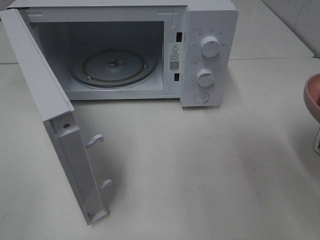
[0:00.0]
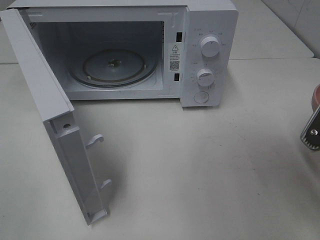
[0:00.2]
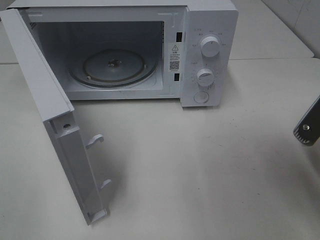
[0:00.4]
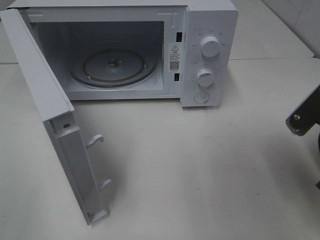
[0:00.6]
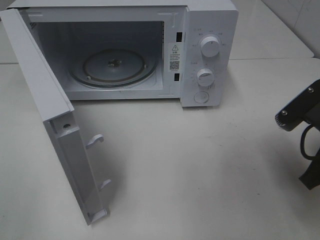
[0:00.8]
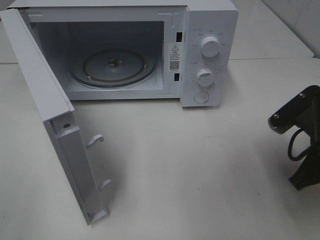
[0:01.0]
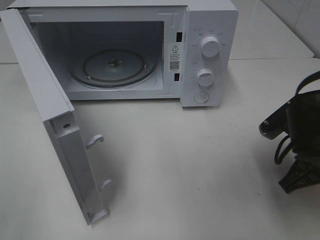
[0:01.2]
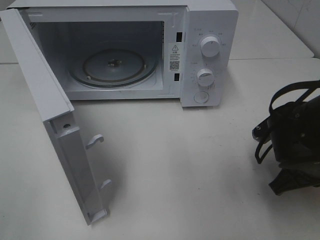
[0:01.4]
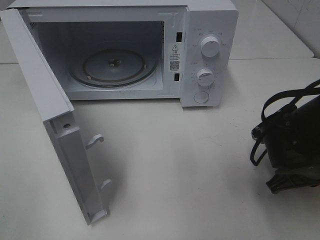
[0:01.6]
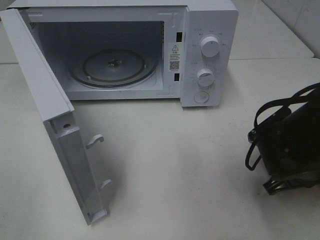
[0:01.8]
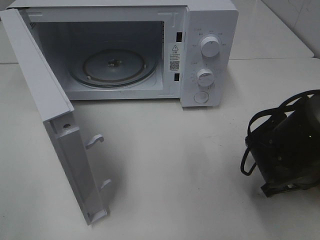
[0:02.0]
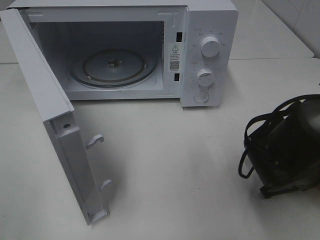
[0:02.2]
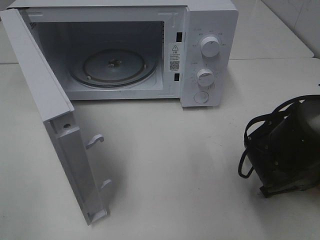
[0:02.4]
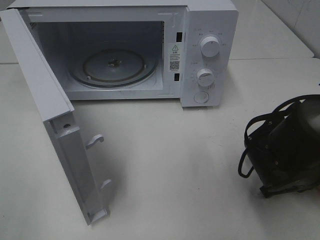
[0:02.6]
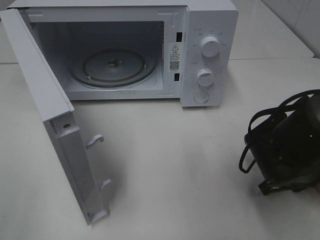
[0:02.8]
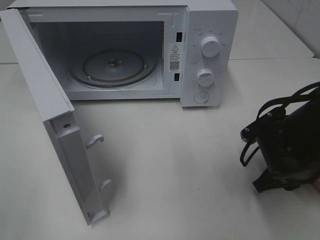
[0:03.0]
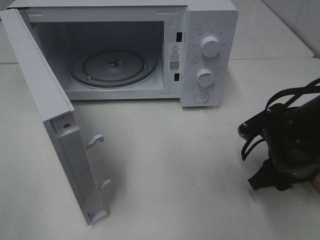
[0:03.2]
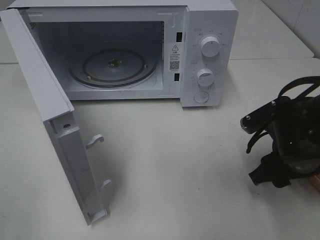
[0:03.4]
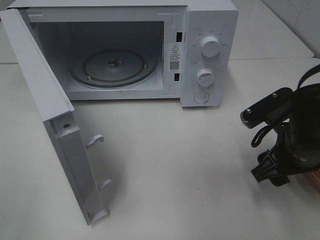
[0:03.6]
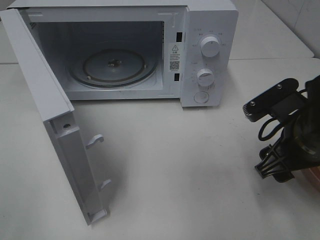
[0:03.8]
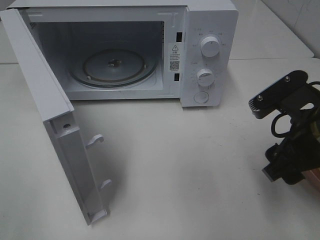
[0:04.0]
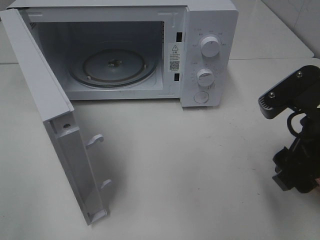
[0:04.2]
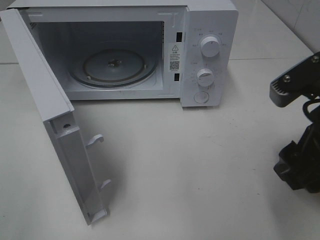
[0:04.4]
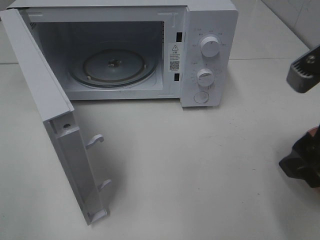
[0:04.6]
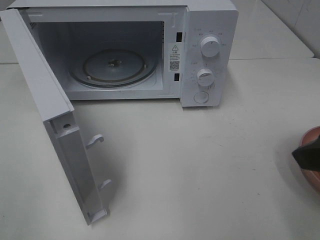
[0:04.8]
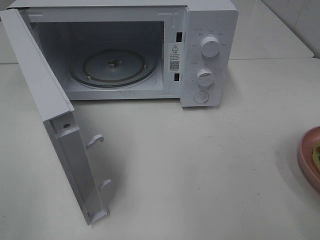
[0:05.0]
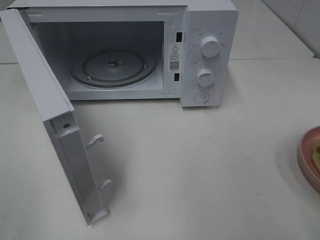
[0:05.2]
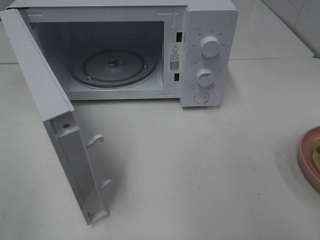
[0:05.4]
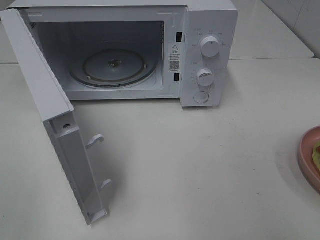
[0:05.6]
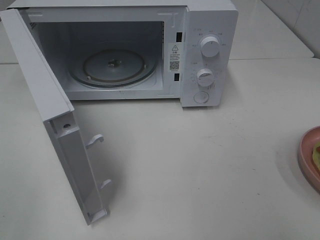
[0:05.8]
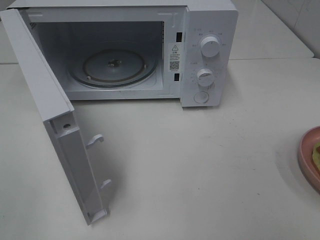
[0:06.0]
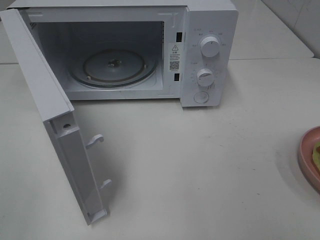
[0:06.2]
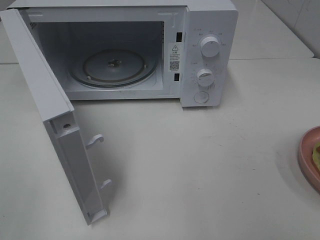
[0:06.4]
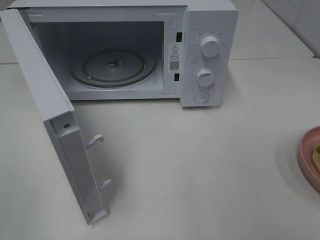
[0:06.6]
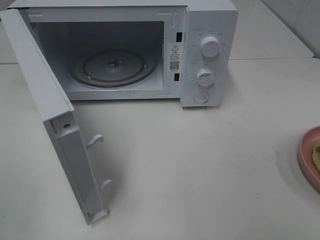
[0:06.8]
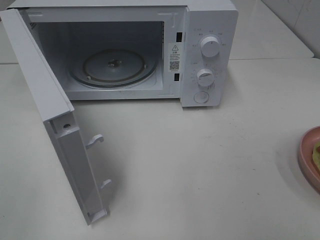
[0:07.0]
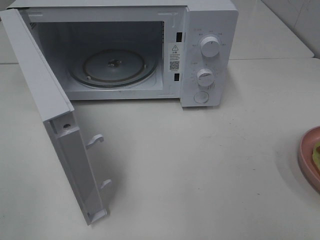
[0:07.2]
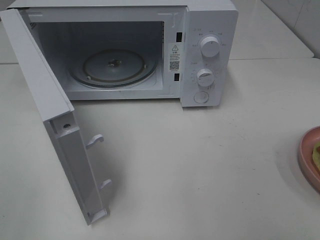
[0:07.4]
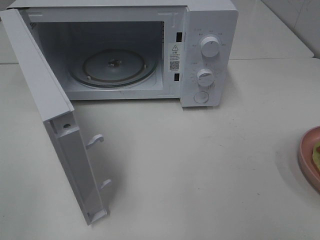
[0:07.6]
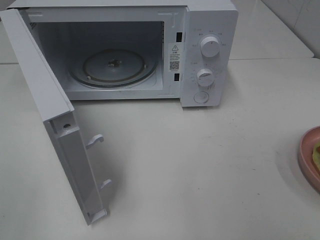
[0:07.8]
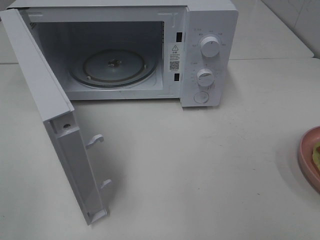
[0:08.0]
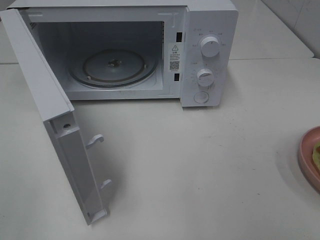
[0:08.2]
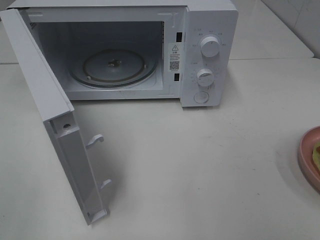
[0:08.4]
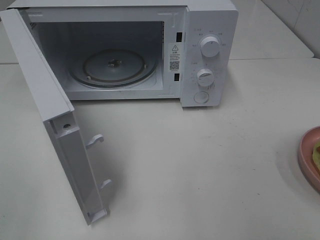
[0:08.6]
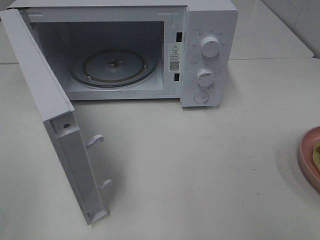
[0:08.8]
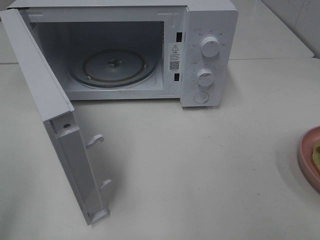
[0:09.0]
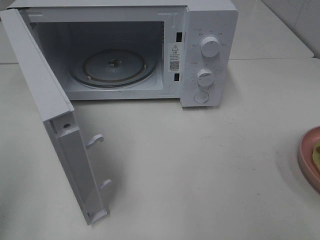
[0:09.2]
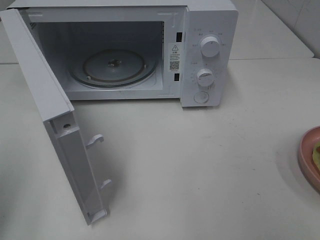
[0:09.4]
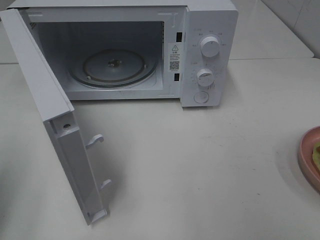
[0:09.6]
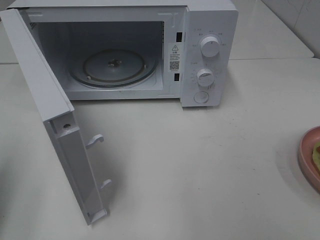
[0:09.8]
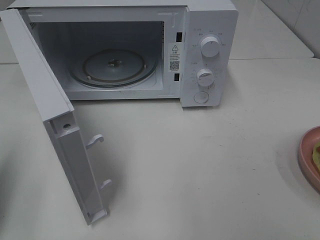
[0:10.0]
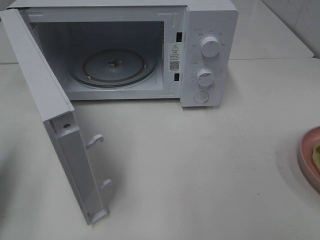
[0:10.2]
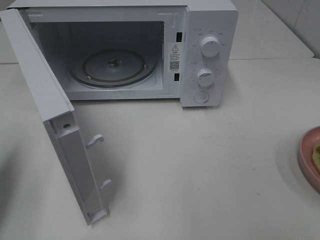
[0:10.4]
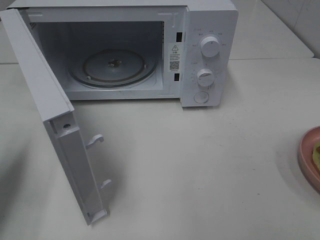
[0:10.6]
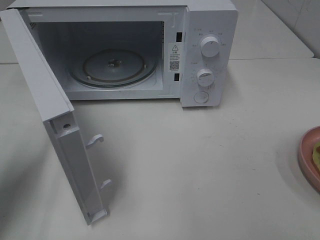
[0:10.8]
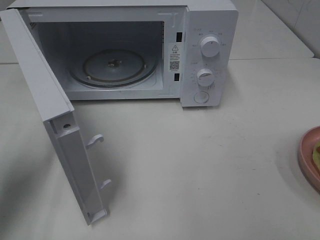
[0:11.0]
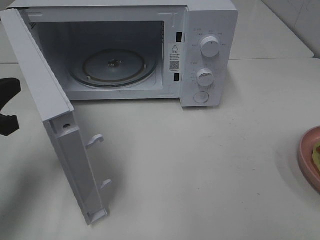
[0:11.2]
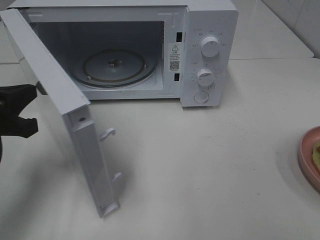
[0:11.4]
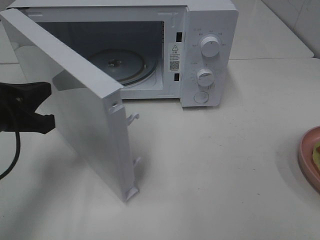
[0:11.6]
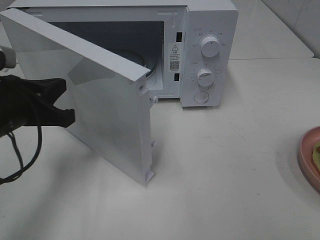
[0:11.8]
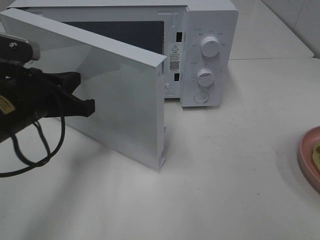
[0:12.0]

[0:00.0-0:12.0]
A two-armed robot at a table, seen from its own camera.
Task of the whole recording: Heat Sandwich.
Step, 0:00.0 to 0:04.2: Right hand: place the plate on the table.
0:00.0 to 0:01.6: The right gripper shifts roughly 15 cm downward and forward.
0:01.6 to 0:03.0: The grippers make only small movements.
0:03.0 to 0:04.4: The right gripper shifts roughly 15 cm upward and backward.
0:04.4 to 0:06.0: The right gripper is displaced backward and to the right by approximately 15 cm.
0:09.0 to 0:10.4: The left gripper shifts about 15 cm forward and downward, and closes its fingers.
0:10.4 to 0:12.0: The left gripper heads to the right and forward, covering about 15 cm.

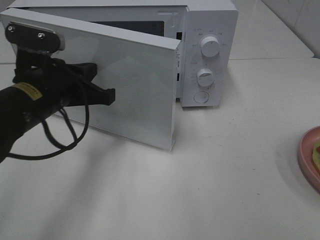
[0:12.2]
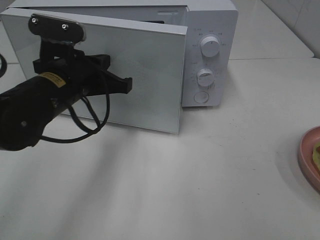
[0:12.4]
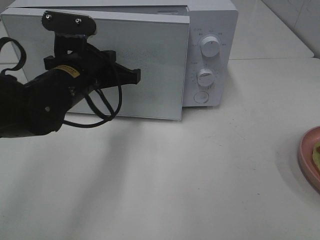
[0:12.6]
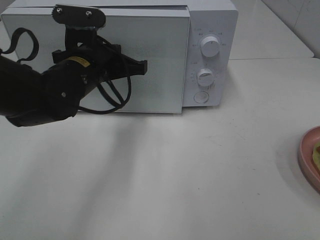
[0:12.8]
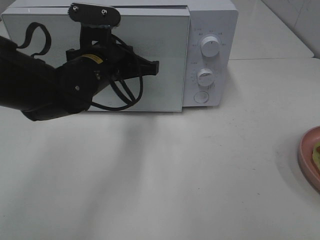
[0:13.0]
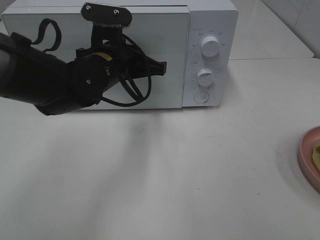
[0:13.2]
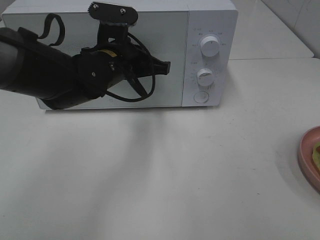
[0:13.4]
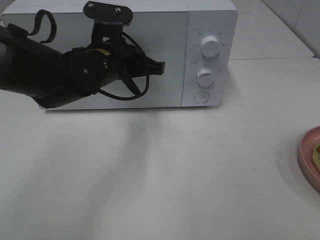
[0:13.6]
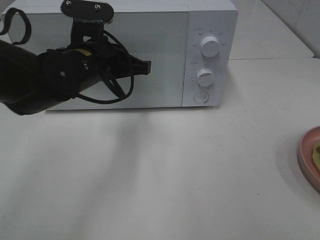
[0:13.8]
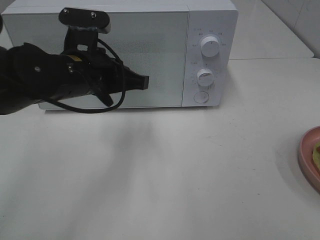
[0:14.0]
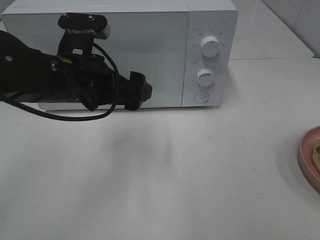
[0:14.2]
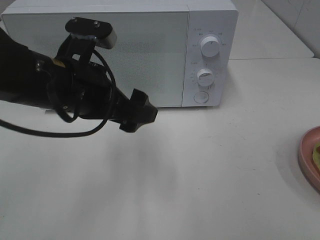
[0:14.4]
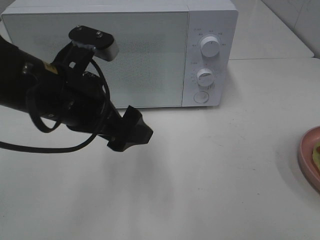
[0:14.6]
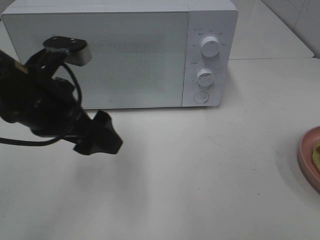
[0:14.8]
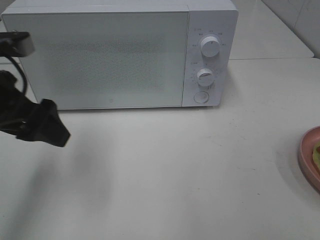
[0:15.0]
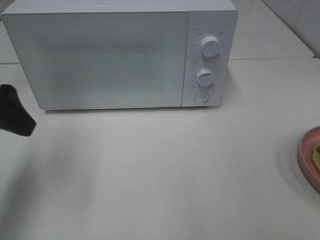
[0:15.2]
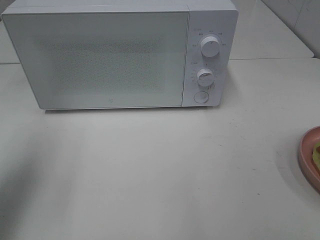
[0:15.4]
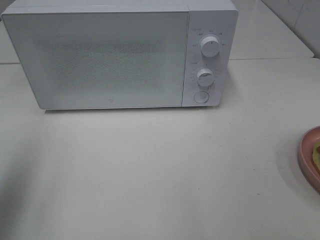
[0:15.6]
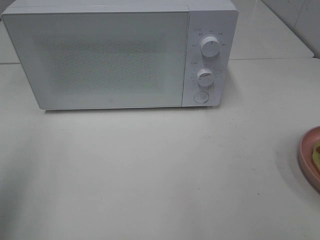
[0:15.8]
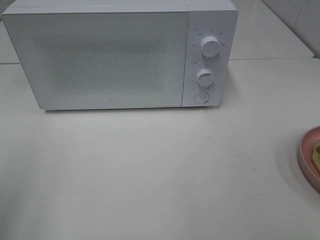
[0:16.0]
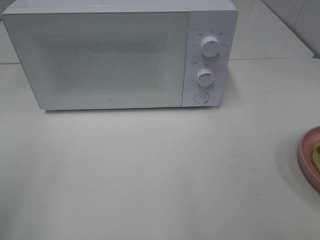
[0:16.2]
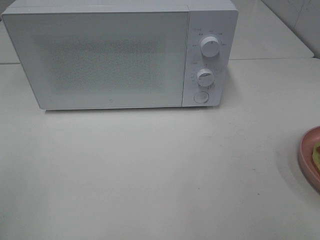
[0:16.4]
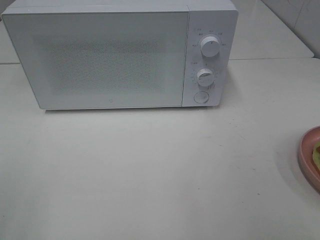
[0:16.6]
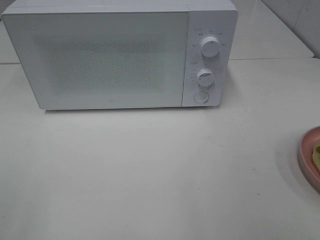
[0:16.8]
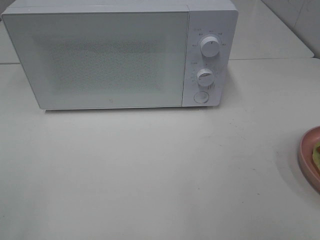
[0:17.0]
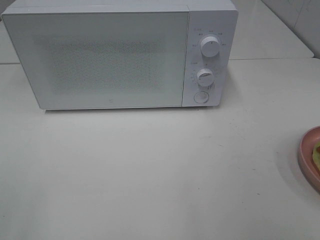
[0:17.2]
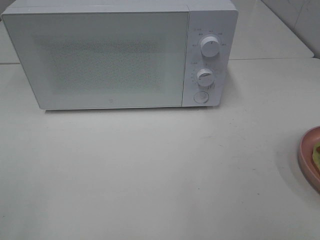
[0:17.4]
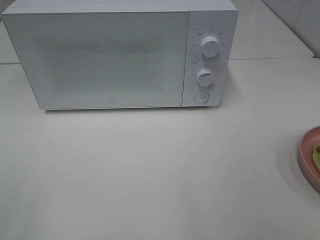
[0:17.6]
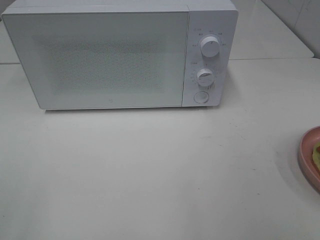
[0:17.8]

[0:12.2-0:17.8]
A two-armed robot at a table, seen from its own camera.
Task of the whole recording: Heat Sandwich.
0:12.2 to 0:13.6: The left gripper moves forward and to the right, about 10 cm.
0:13.6 to 0:15.0: The left gripper is displaced to the left, backward and upward by some 20 cm, and opens its fingers.
0:15.0 to 0:16.4: The left gripper is displaced backward and to the left by approximately 25 cm.

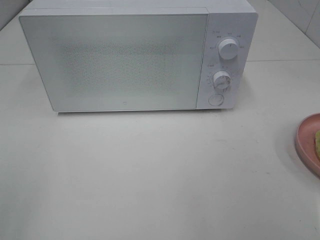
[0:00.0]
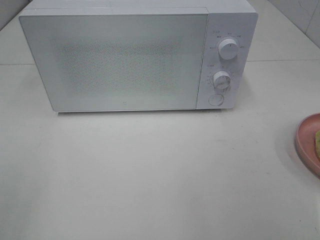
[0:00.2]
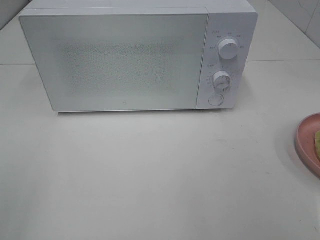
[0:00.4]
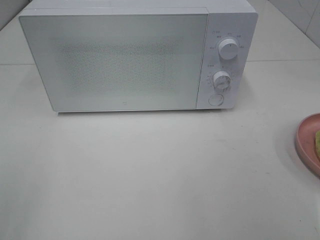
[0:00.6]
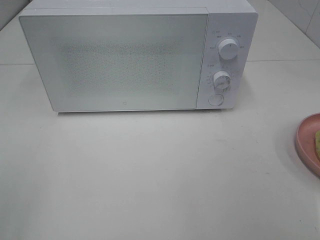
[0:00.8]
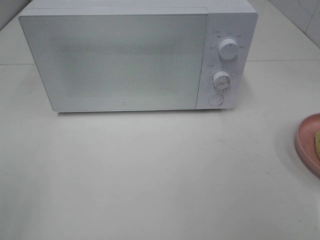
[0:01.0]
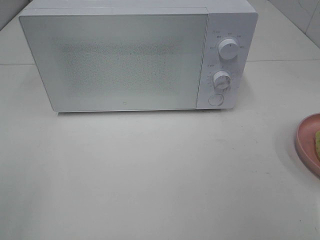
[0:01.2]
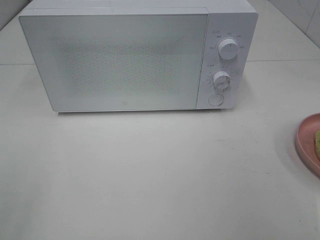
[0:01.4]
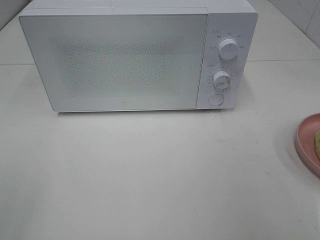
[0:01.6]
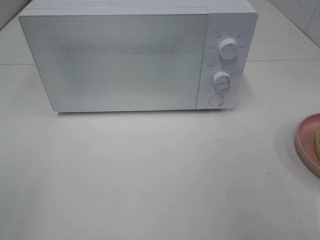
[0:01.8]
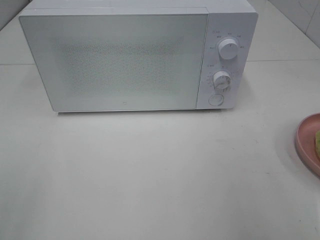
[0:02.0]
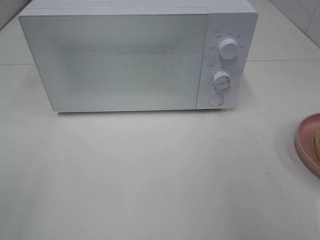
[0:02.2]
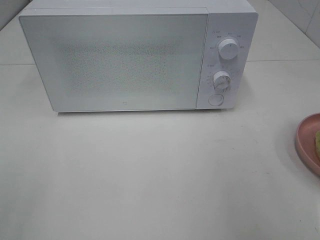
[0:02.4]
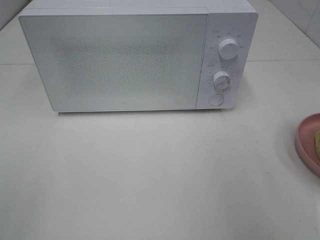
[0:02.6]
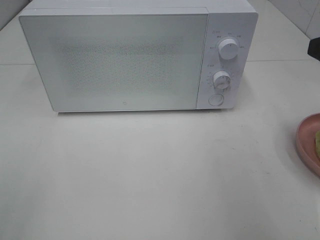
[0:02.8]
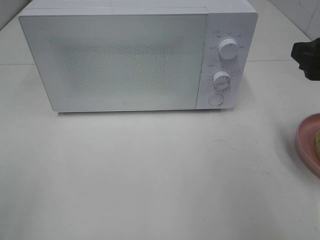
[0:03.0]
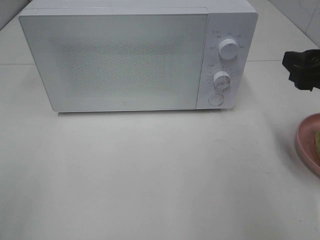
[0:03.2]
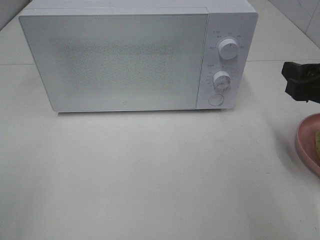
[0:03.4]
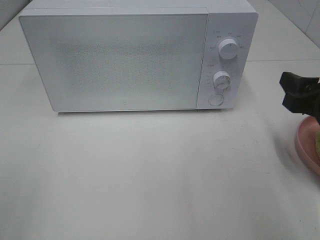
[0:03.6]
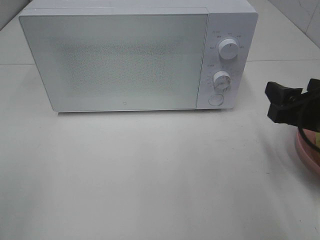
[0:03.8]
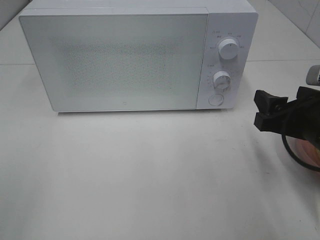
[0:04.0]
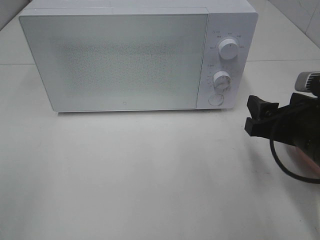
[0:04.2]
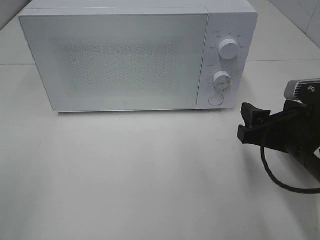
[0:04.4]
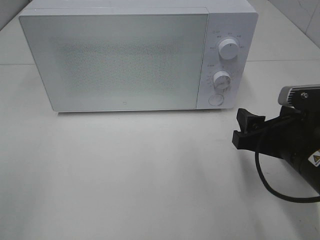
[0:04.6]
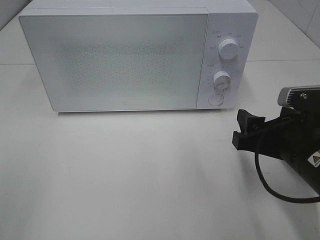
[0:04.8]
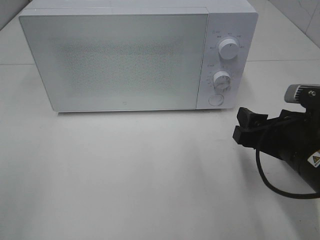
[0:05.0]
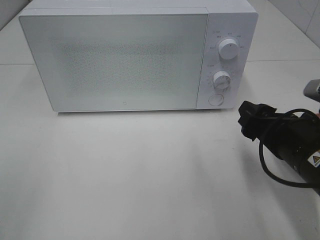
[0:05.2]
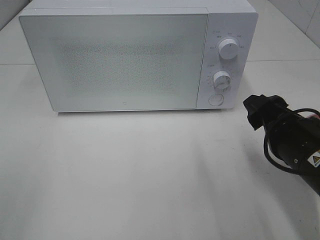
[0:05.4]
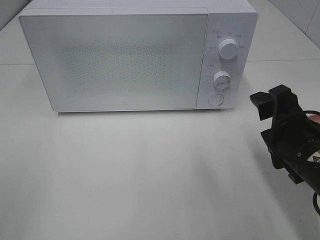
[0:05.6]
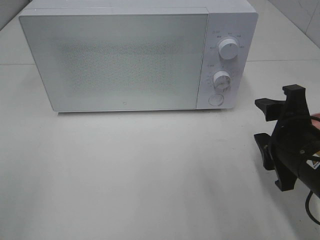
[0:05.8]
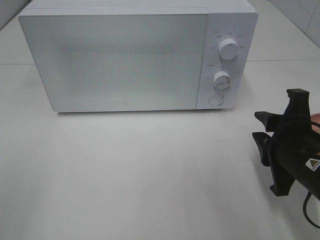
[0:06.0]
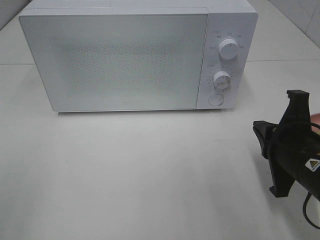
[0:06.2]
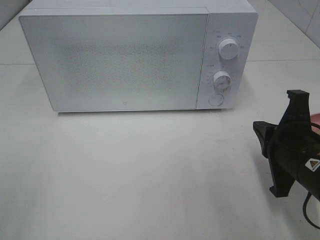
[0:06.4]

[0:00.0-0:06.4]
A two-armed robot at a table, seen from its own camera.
Task of the whole recording: Heat Sandwich.
0:01.6 to 0:03.2: The right gripper travels forward and downward by some 15 cm.
0:03.2 to 0:04.8: The right gripper is displaced downward and to the left by roughly 10 cm.
0:04.8 to 0:06.4: The right gripper closes.
